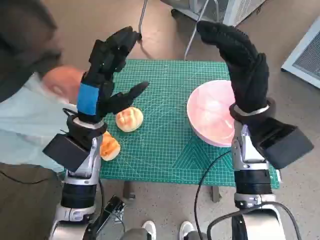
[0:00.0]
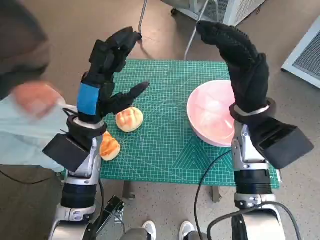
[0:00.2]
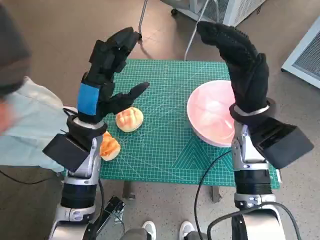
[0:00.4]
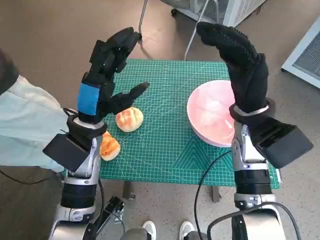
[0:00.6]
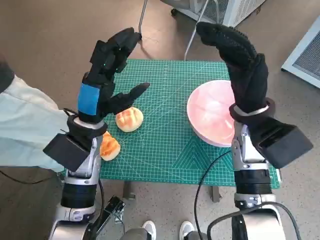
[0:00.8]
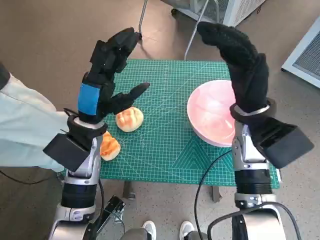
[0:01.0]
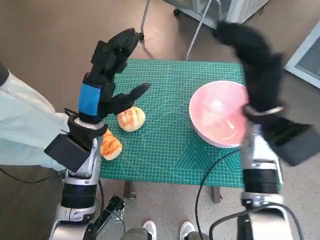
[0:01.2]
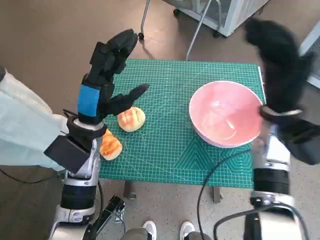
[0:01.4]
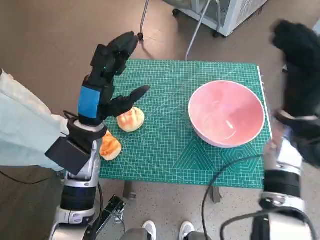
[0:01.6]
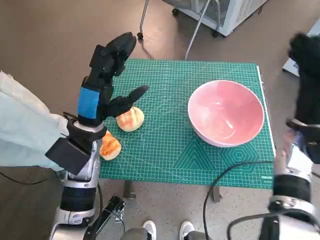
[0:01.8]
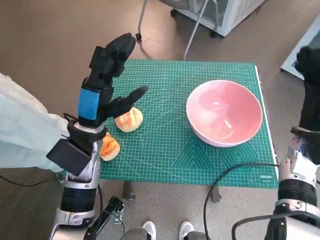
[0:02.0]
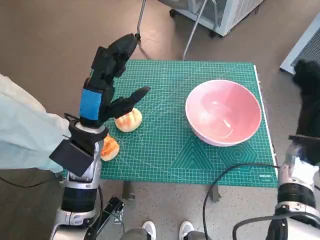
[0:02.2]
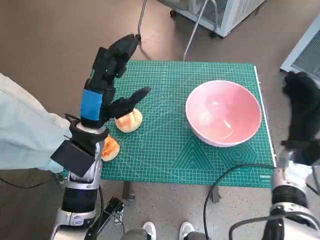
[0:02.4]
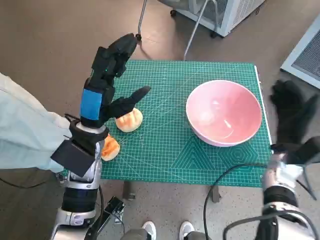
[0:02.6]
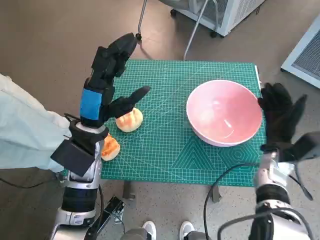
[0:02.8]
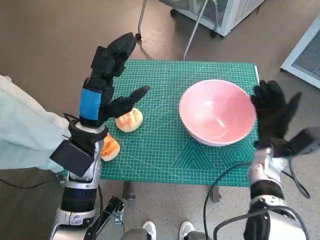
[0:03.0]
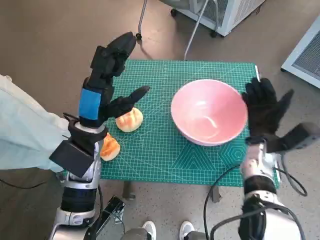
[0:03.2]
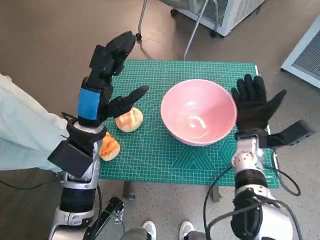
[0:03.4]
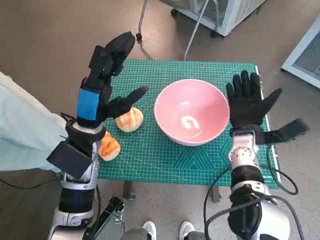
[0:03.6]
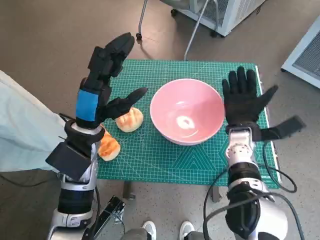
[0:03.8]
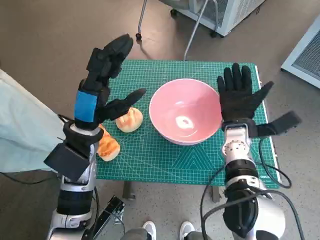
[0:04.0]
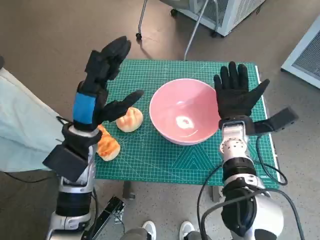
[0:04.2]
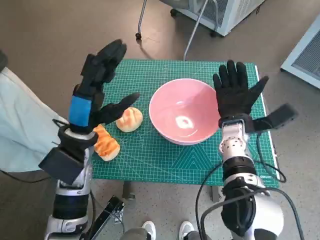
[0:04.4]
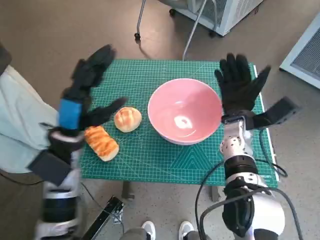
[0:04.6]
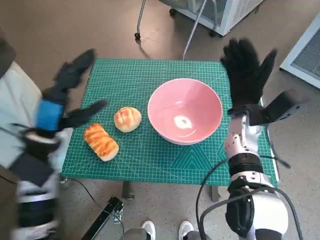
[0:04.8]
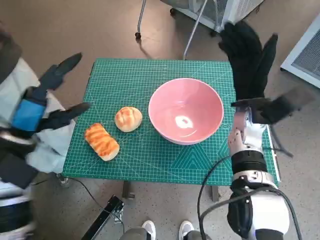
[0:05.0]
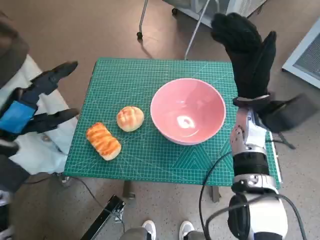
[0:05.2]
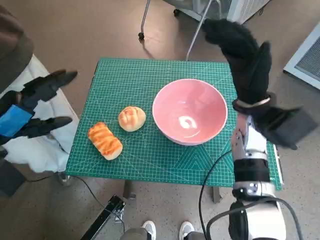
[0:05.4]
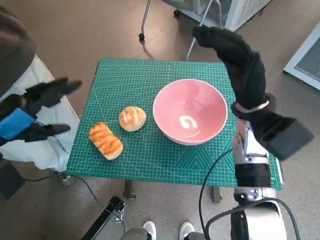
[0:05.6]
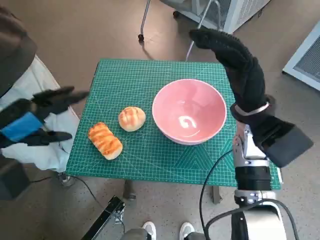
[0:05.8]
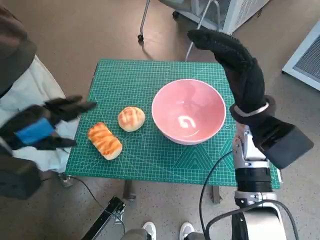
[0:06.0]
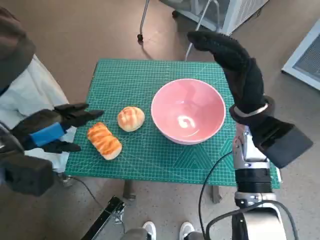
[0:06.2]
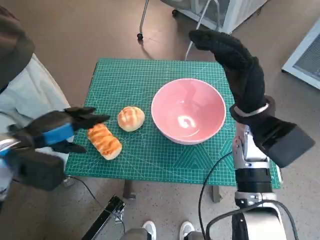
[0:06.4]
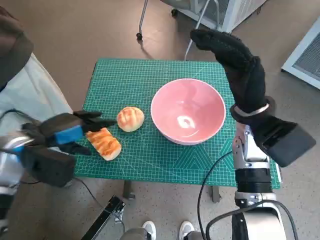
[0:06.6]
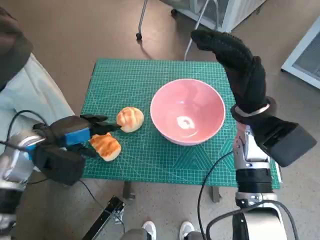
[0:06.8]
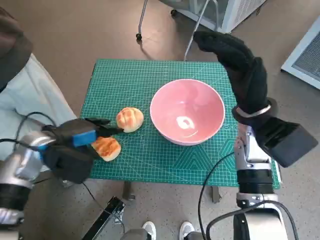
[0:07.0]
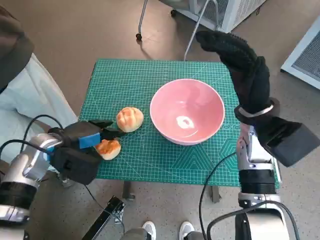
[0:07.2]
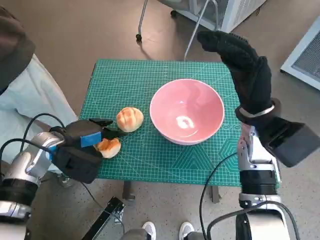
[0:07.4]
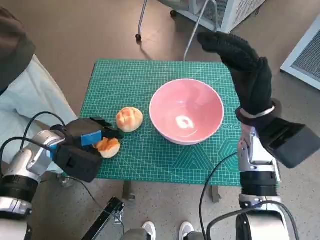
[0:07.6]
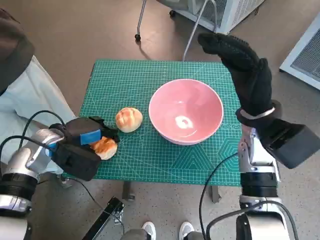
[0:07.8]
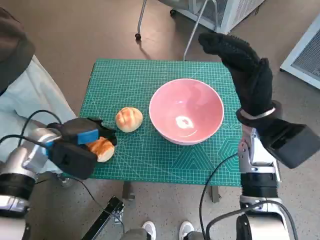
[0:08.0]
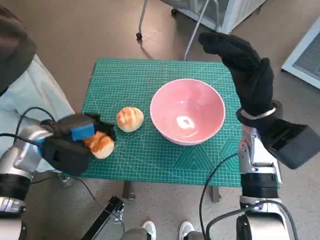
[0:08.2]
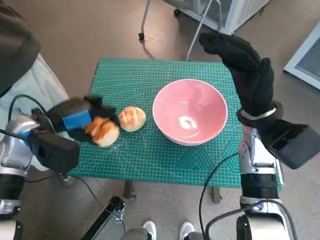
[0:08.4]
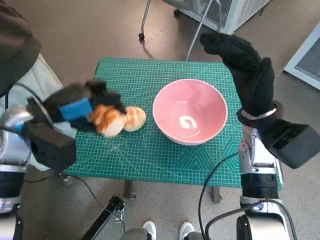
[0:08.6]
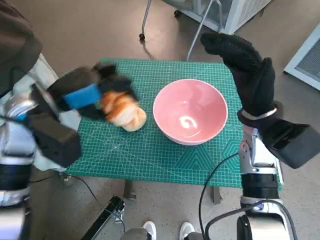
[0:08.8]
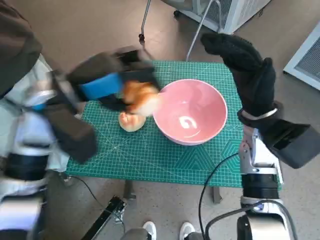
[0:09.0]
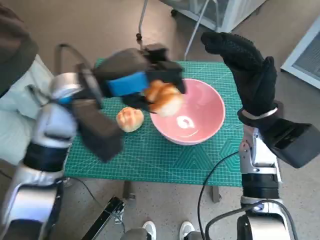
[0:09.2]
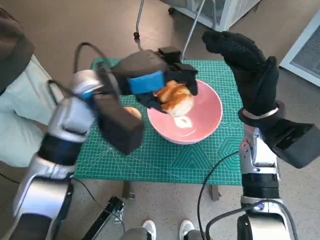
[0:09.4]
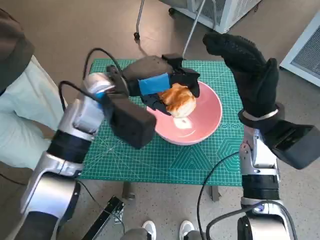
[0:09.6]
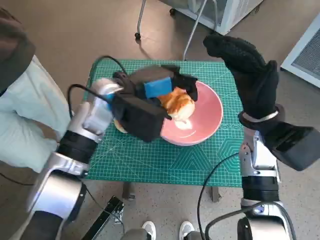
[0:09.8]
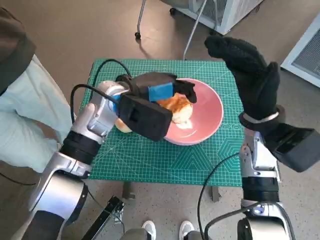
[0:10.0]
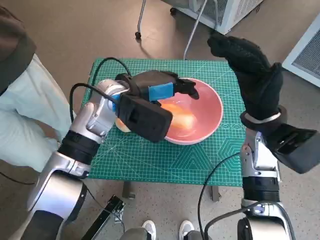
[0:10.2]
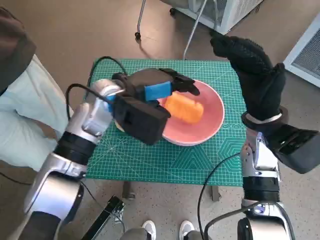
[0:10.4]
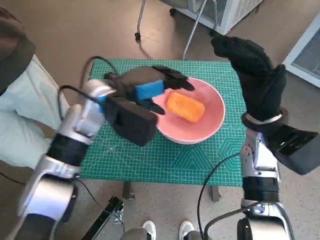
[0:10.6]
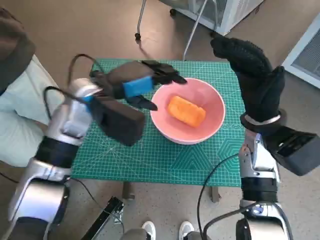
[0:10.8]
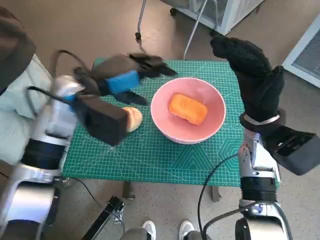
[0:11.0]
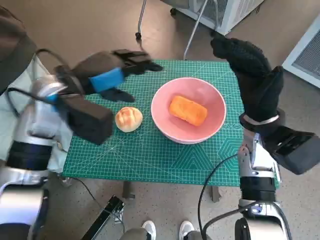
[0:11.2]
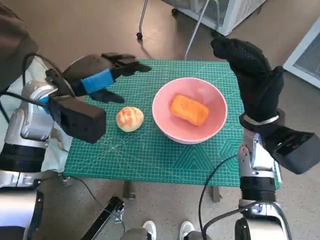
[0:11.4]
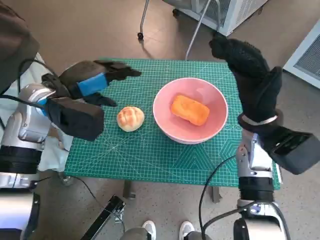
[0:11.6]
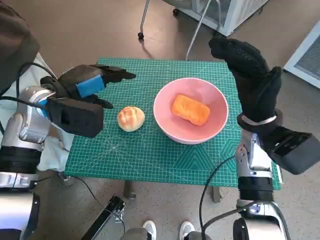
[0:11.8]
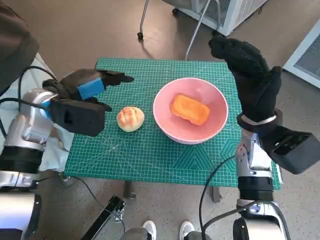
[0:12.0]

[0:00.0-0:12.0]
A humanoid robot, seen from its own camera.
Task of the whole recording: Push the bowl to the center of the table and put the bread into the bowl.
Step, 0:00.0 to 0:04.6: Move the pink bowl to the center of table with right hand.
Step, 0:04.8 to 0:07.8: Grasp the long bread with left hand.
Step, 0:08.0 to 0:10.4: Place the long bread in pink bowl with left hand.
0:01.6 to 0:03.0: The right hand is displaced downward by roughly 10 cm.
0:03.0 to 0:04.4: The right hand moves to the left, roughly 10 cm.
0:04.4 to 0:06.0: The right hand is displaced upward by approximately 10 cm. The left hand moves to the left and upward, some 15 cm.
0:06.0 to 0:07.6: The left hand travels downward and forward by approximately 10 cm.
0:07.6 to 0:09.0: The left hand moves upward and to the right, approximately 15 cm.
0:09.0 to 0:10.4: The left hand travels to the right by roughly 10 cm.
0:10.4 to 0:12.0: The left hand heads to the left, covering approximately 10 cm.

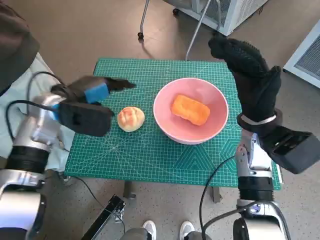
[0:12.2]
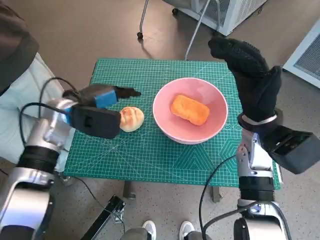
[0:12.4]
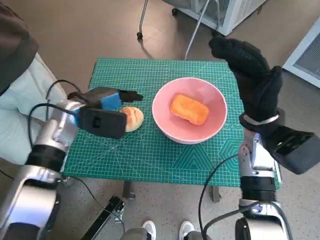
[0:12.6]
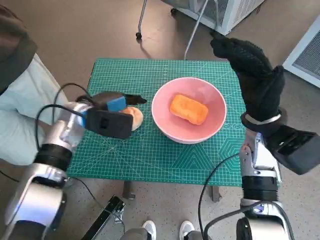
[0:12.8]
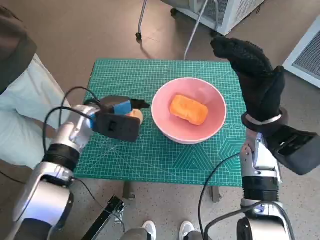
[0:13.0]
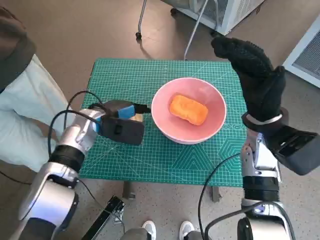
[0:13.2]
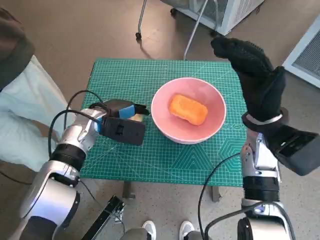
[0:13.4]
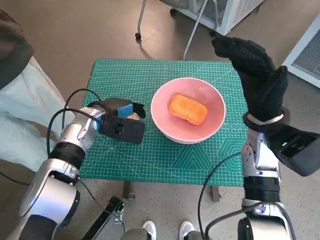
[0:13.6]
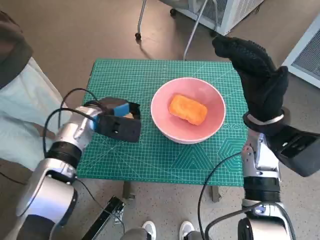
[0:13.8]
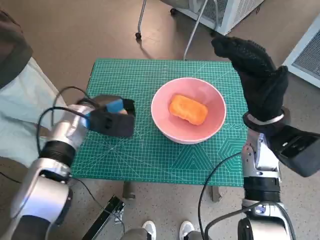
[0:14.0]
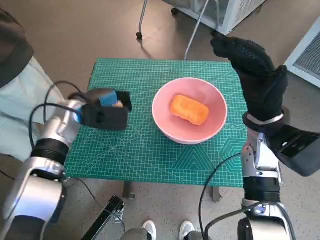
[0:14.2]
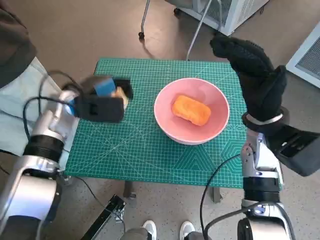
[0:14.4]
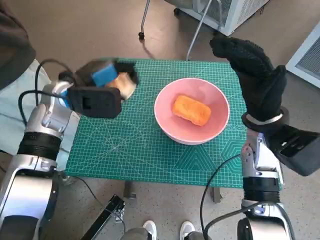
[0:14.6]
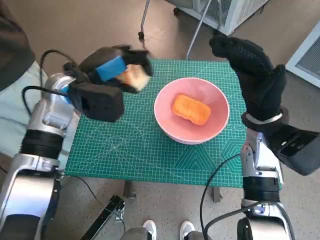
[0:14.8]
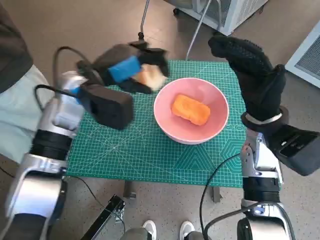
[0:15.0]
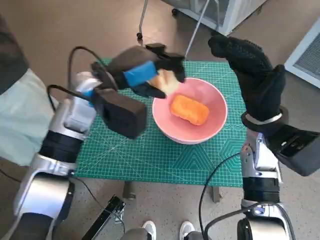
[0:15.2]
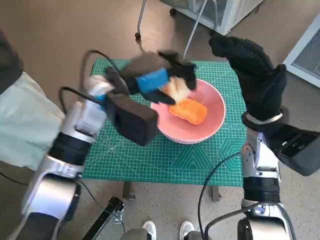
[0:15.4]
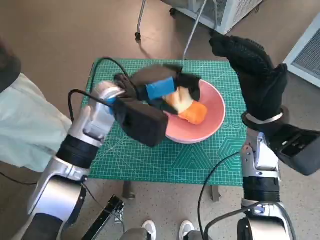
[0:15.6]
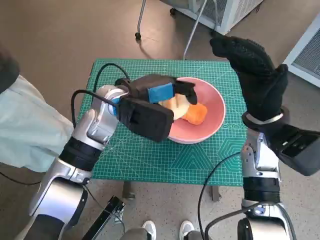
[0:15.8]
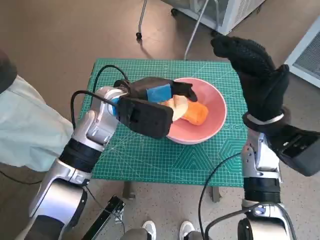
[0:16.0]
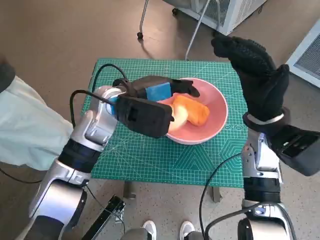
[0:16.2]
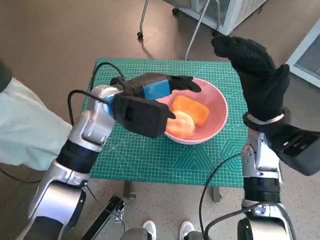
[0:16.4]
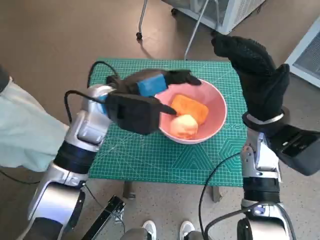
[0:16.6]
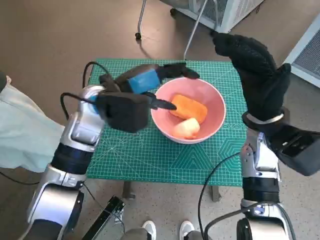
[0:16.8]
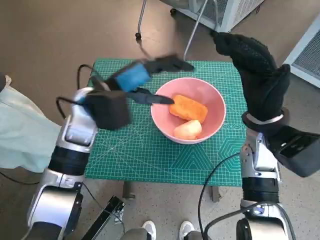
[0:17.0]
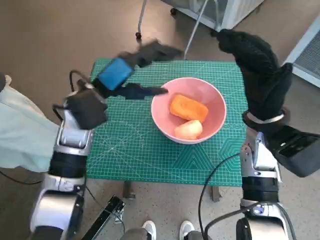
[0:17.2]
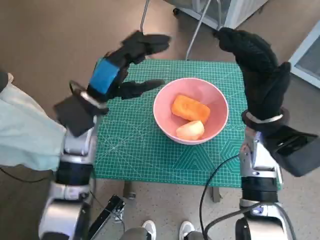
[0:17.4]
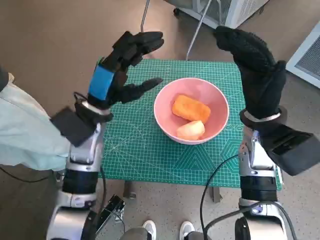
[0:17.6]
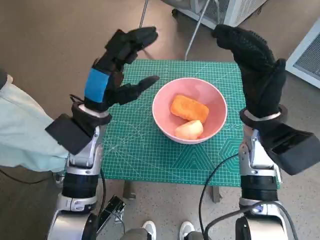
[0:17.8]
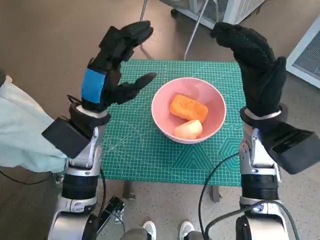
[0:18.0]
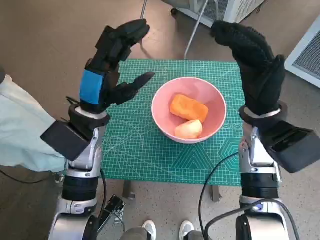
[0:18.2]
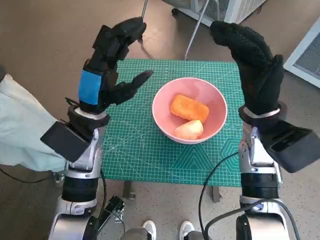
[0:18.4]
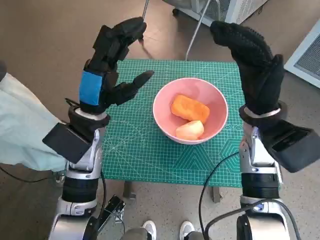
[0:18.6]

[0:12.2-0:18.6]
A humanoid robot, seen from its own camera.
Task of the whole recording: Push the bowl to the center of the table and put the bread into the bowl.
Step, 0:13.8 to 0:16.4: Place the round bread in pink bowl with left hand.
0:12.2 to 0:13.8: The left hand moves downward, approximately 5 cm.
0:13.8 to 0:15.4: The left hand travels upward and to the right by roughly 15 cm.

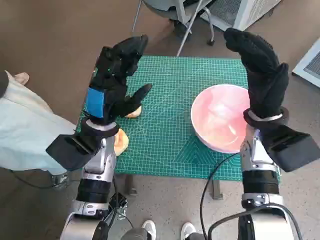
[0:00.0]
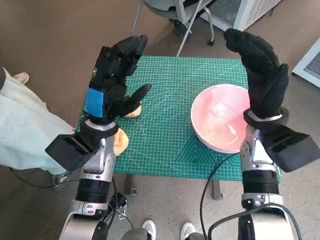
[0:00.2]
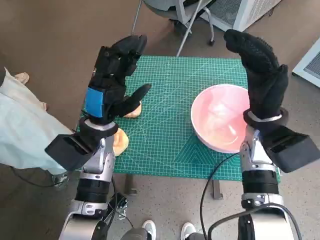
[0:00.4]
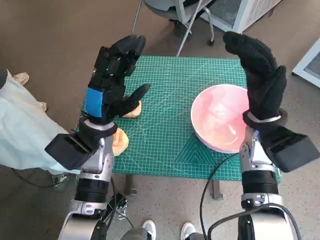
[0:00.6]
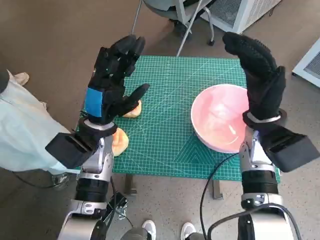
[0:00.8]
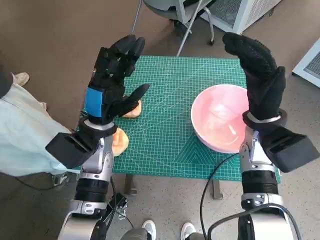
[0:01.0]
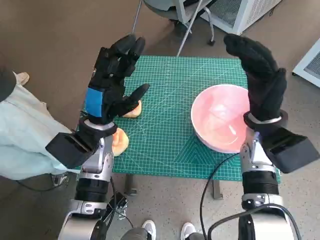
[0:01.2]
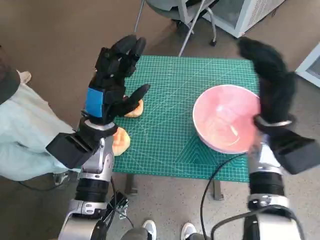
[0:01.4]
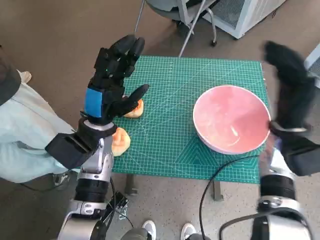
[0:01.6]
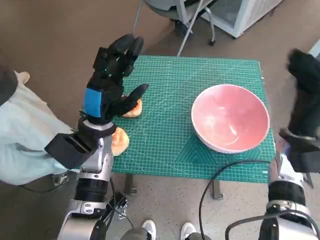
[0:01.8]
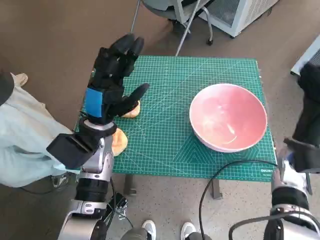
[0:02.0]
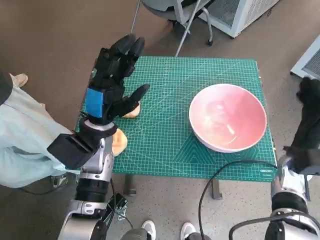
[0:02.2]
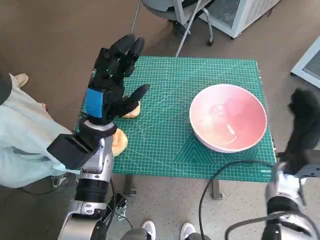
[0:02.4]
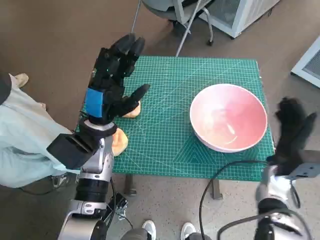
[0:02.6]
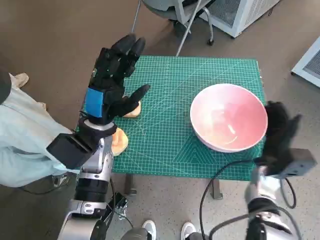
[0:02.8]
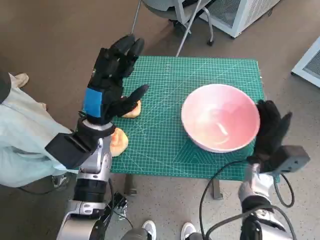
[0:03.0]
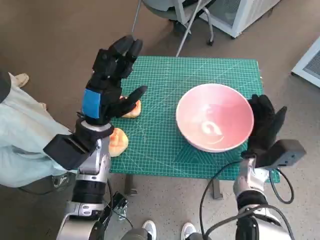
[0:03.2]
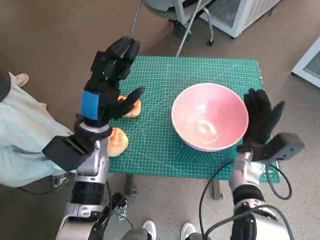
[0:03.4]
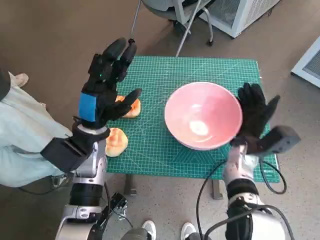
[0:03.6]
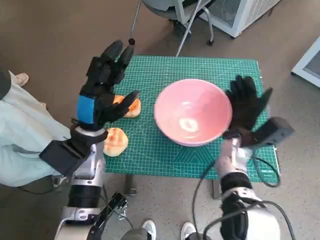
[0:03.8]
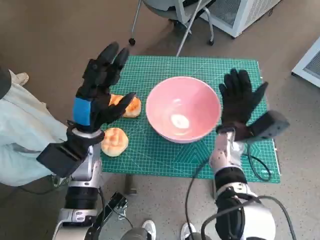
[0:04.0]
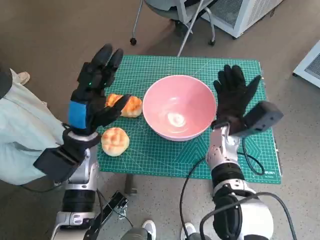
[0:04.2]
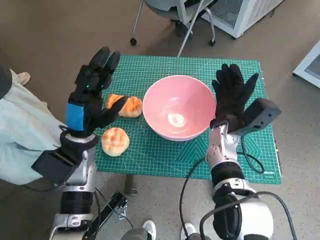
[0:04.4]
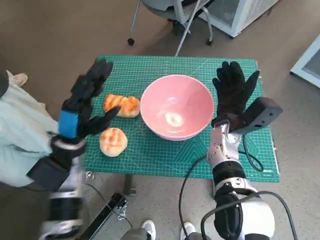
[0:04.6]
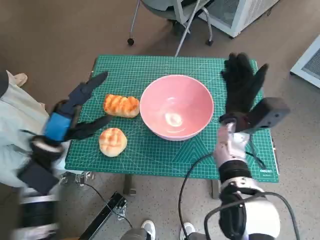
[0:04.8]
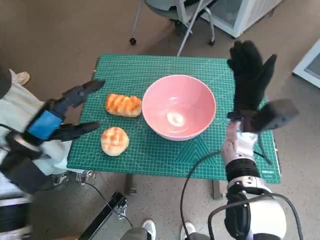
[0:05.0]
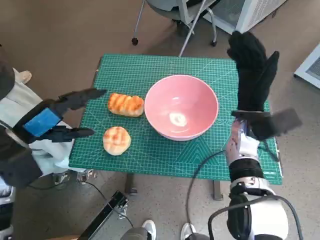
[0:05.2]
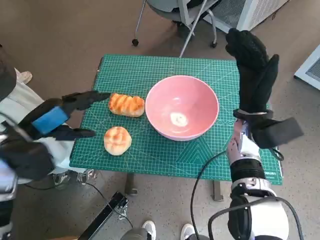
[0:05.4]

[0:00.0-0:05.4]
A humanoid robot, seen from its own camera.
Task of the whole recording: Push the bowl to the center of the table and put the bread into the bowl.
Step, 0:00.0 to 0:04.6: Move the pink bowl to the center of table with right hand.
0:01.4 to 0:02.8: The right hand moves downward, roughly 15 cm.
0:02.8 to 0:04.0: The right hand heads to the left, forward and upward, covering some 10 cm.
0:04.0 to 0:05.4: The right hand heads upward, covering about 5 cm, while the left hand travels to the left and upward by approximately 10 cm.
